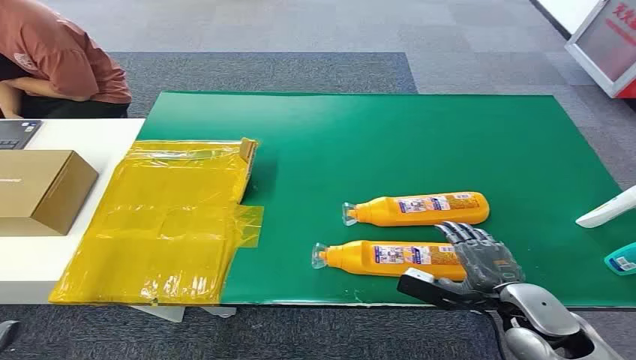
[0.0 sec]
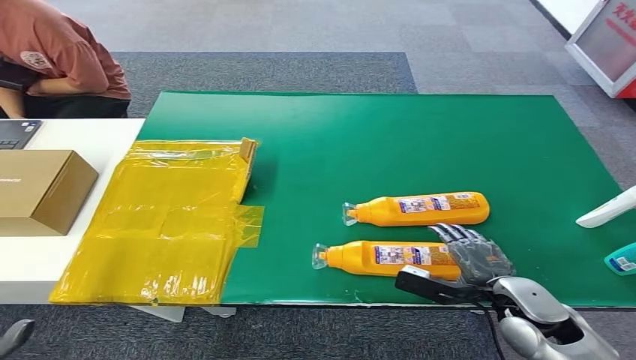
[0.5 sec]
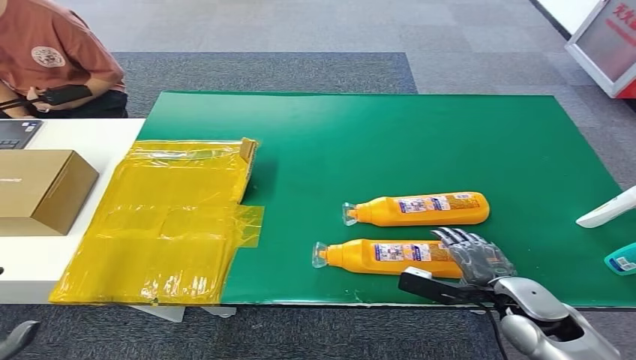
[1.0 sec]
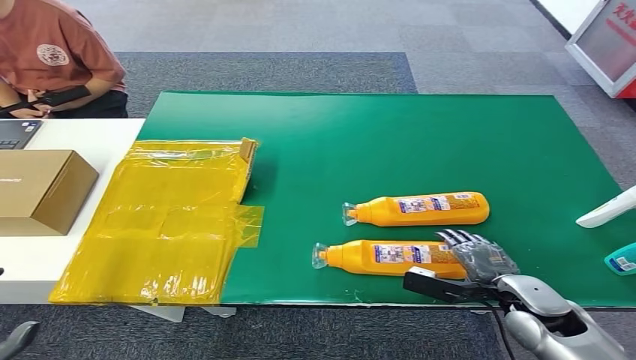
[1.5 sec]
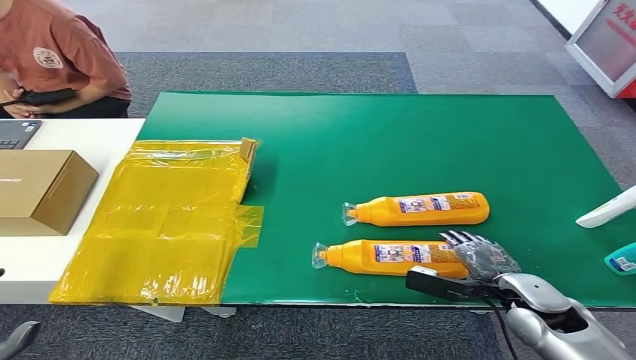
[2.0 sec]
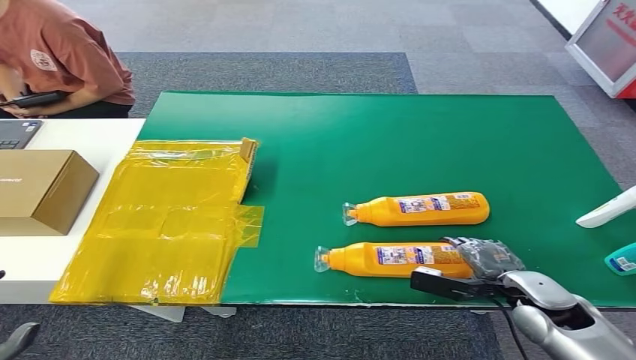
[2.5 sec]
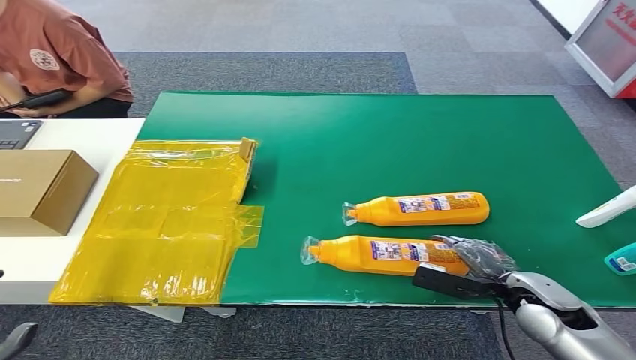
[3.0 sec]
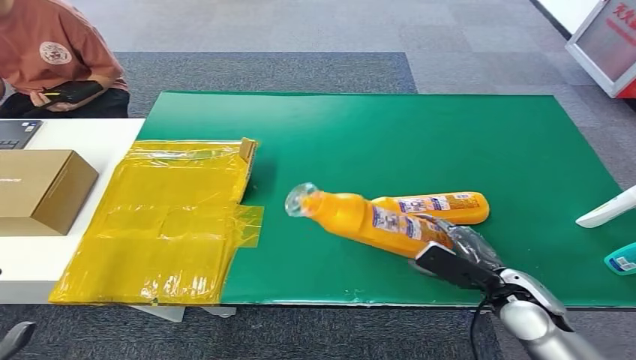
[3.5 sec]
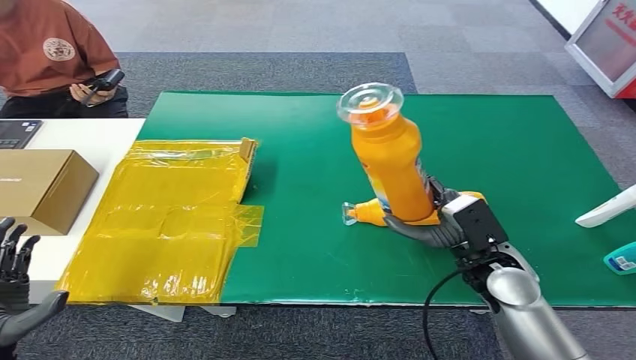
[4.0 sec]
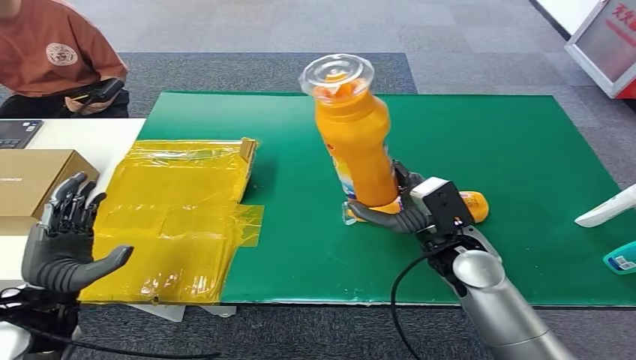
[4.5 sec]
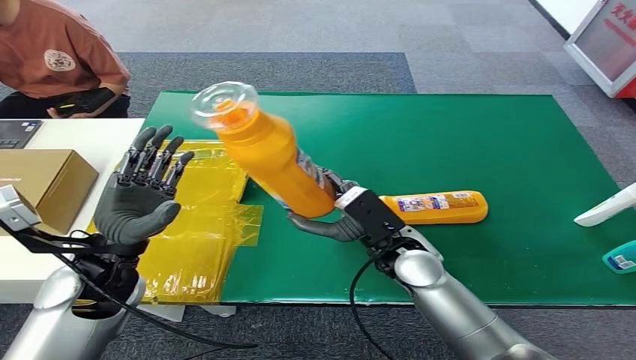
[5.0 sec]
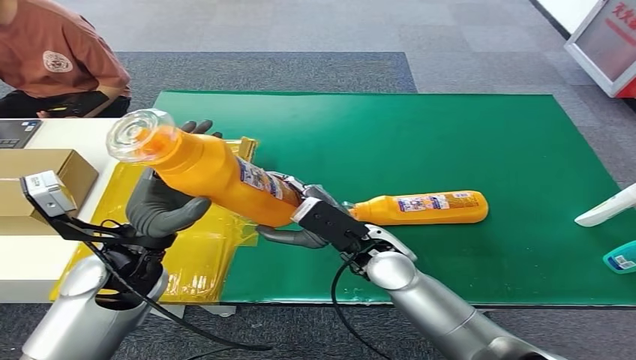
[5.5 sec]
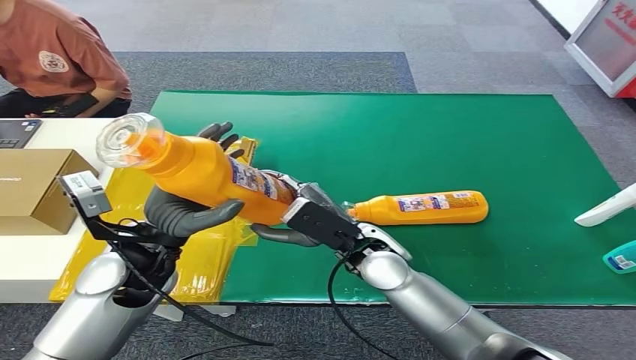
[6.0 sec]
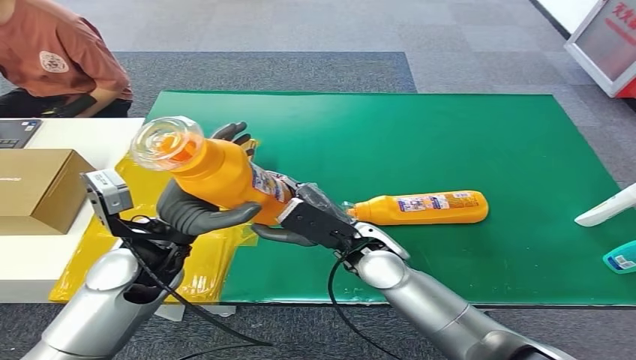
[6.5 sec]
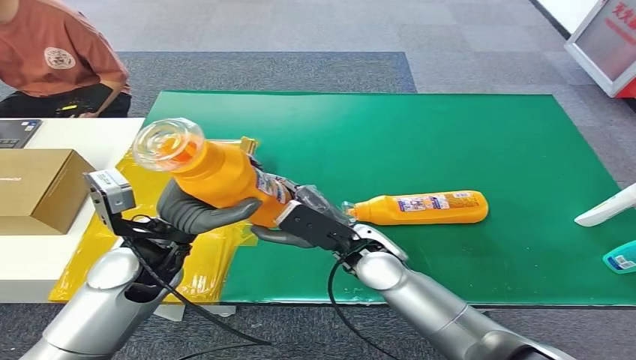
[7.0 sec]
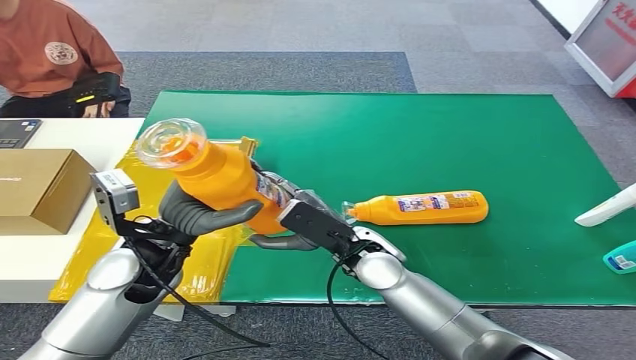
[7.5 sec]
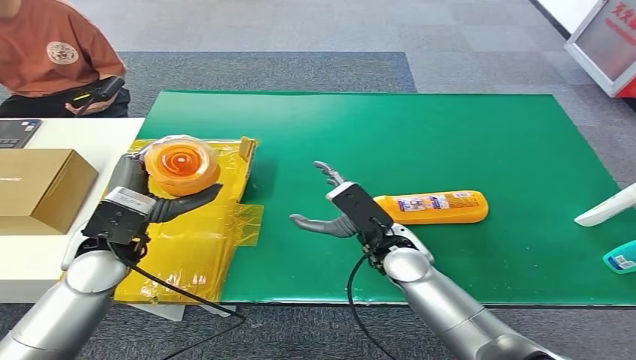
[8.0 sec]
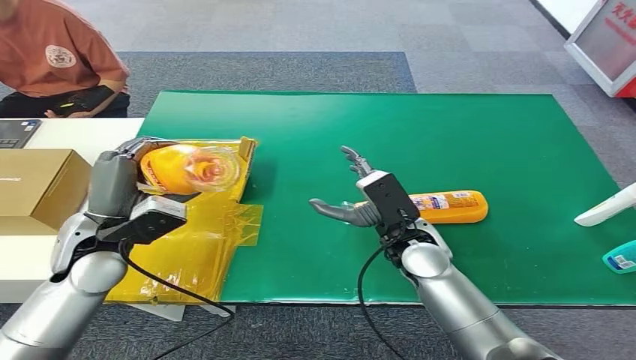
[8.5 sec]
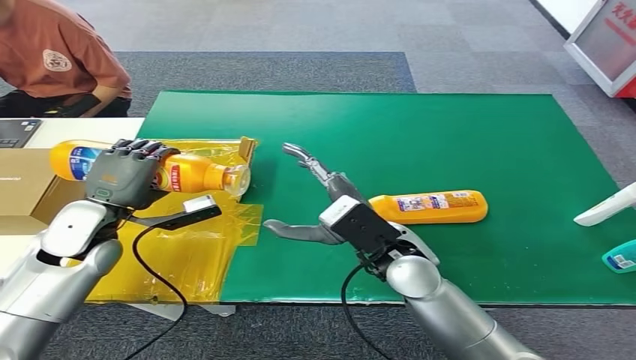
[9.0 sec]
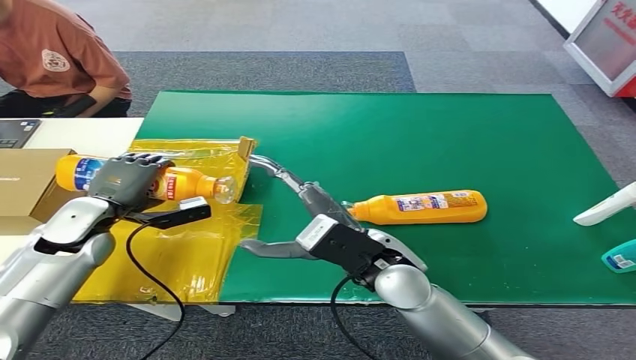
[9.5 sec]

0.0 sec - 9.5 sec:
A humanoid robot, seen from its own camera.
Step, 0.0 sec - 4.5 sec: Pick up the bottle from the table.
Step, 5.0 sec - 9.5 sec: Turn the bottle to the front side.
2.0 sec - 4.0 sec: The right hand travels to the left and upward by roughly 10 cm. The left hand moves forward, roughly 5 cm.
